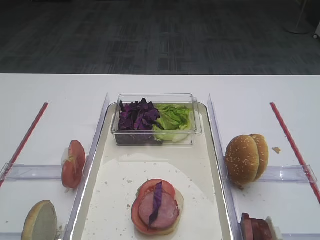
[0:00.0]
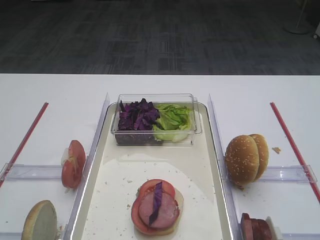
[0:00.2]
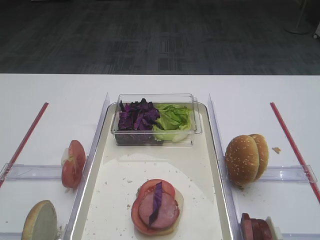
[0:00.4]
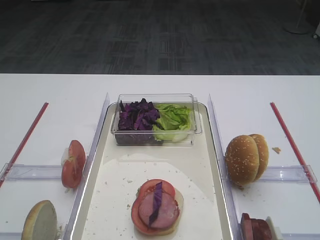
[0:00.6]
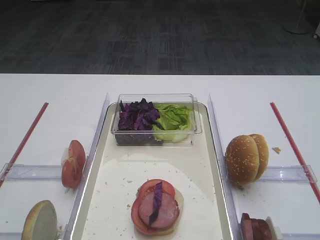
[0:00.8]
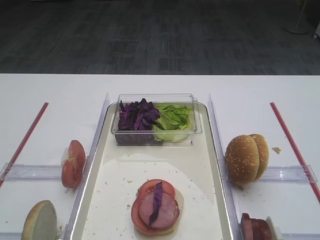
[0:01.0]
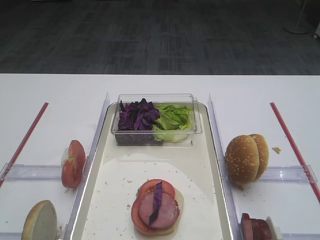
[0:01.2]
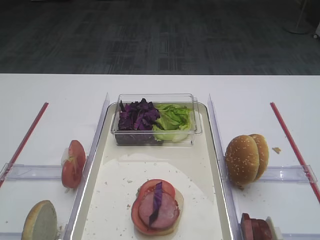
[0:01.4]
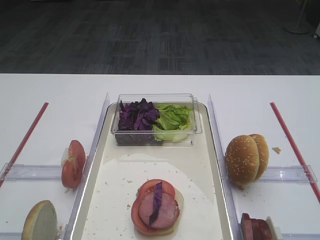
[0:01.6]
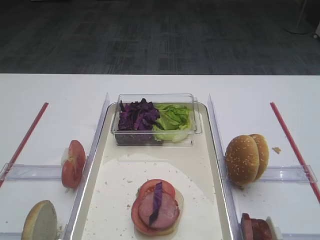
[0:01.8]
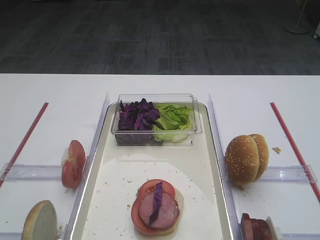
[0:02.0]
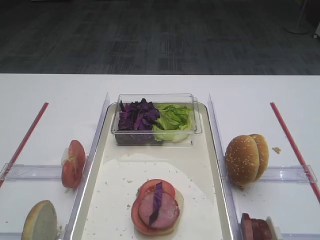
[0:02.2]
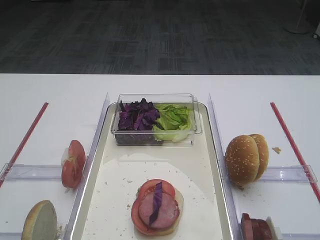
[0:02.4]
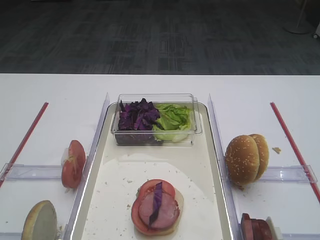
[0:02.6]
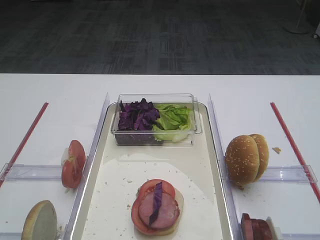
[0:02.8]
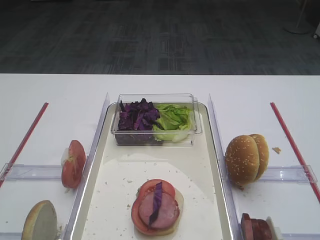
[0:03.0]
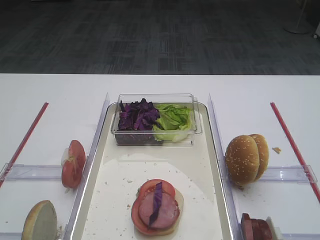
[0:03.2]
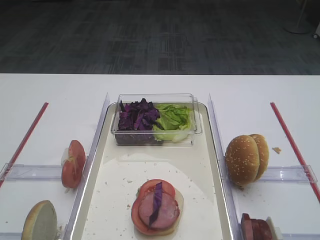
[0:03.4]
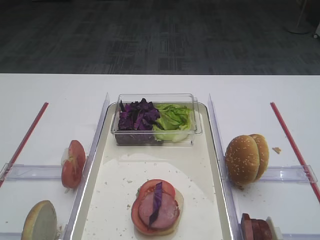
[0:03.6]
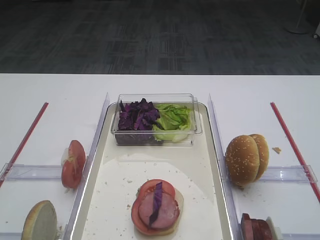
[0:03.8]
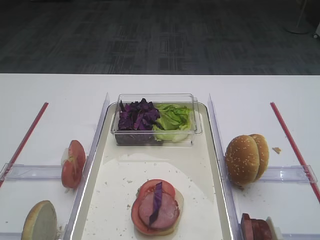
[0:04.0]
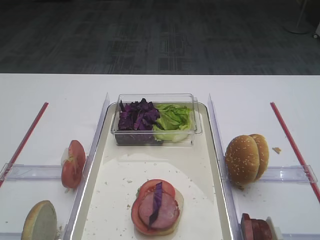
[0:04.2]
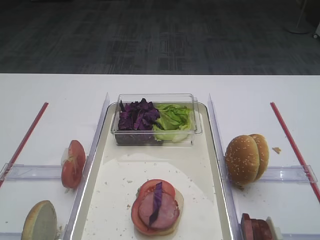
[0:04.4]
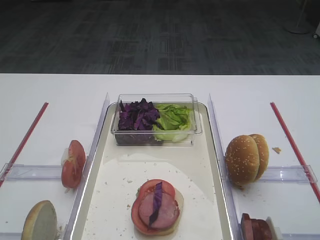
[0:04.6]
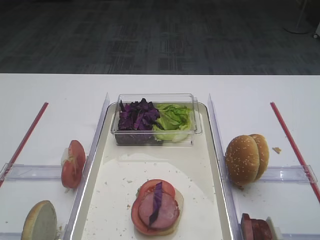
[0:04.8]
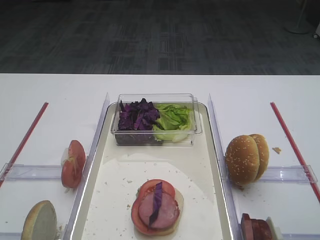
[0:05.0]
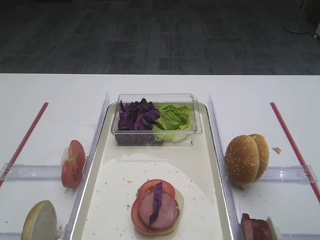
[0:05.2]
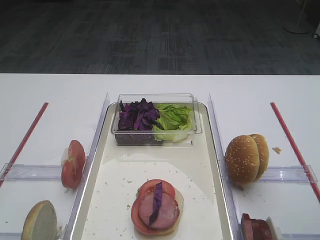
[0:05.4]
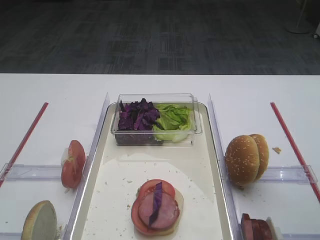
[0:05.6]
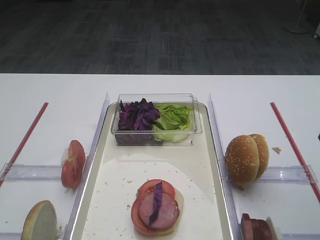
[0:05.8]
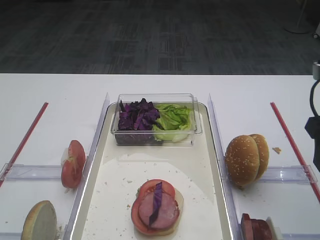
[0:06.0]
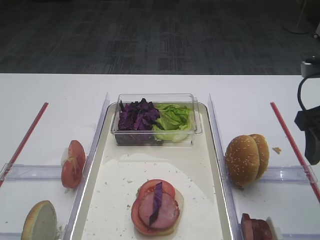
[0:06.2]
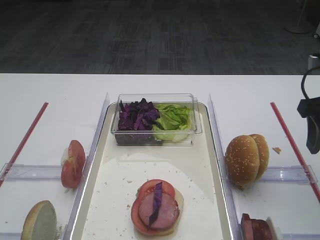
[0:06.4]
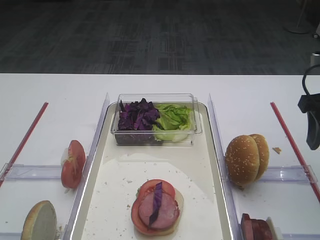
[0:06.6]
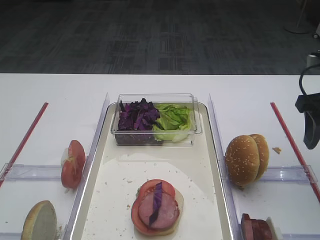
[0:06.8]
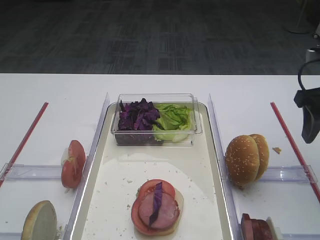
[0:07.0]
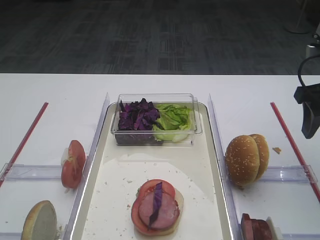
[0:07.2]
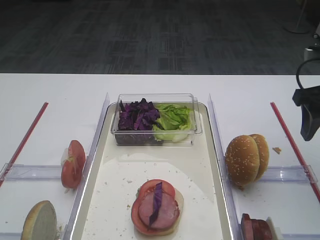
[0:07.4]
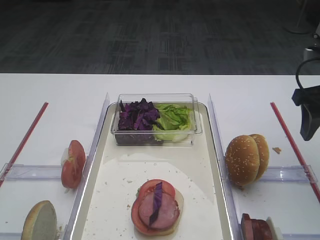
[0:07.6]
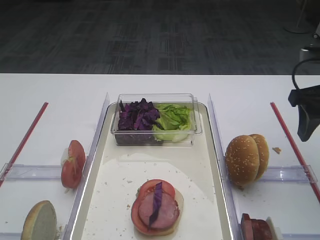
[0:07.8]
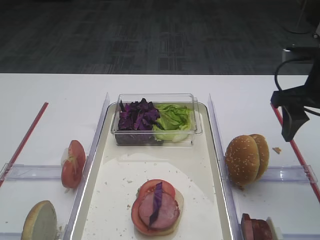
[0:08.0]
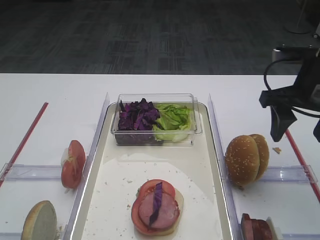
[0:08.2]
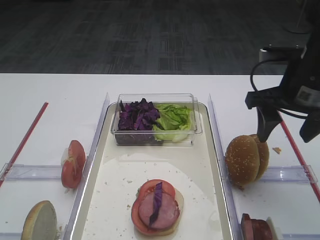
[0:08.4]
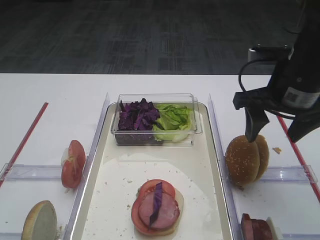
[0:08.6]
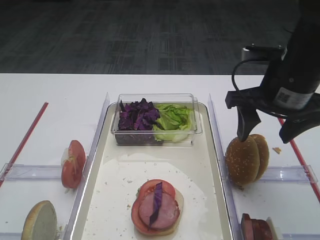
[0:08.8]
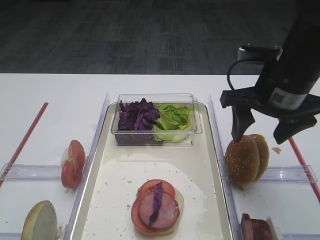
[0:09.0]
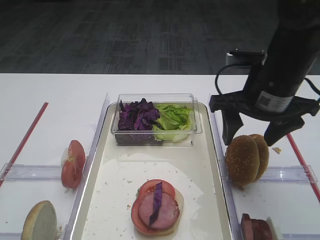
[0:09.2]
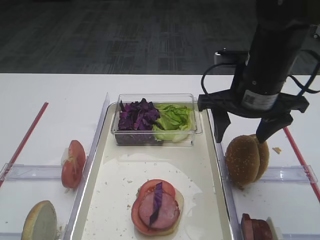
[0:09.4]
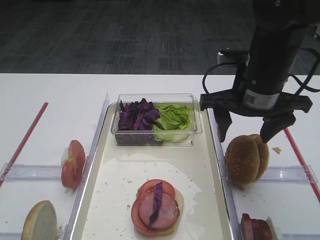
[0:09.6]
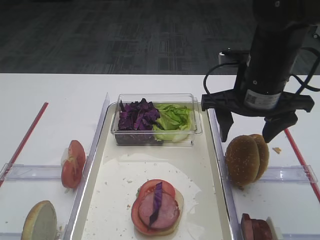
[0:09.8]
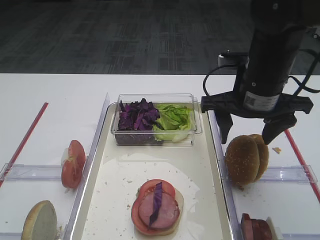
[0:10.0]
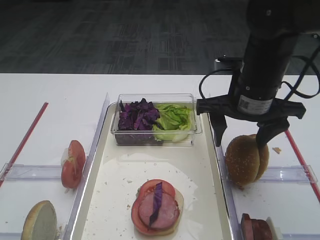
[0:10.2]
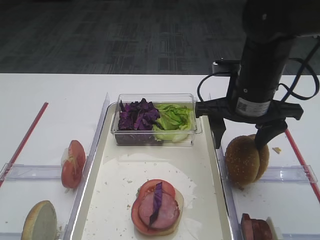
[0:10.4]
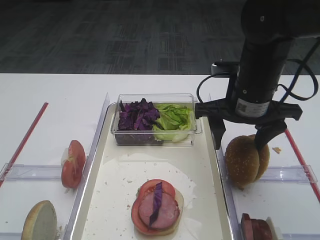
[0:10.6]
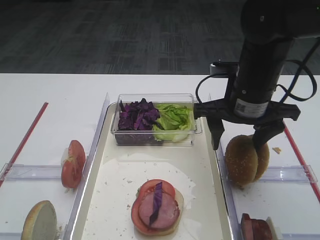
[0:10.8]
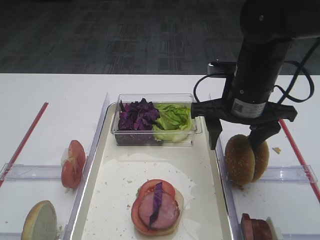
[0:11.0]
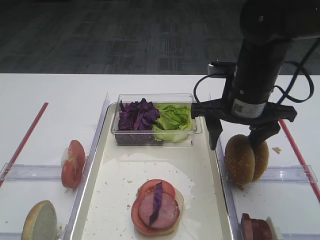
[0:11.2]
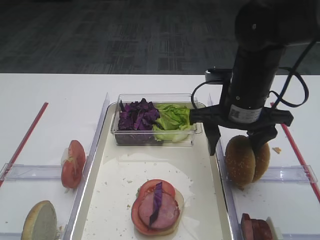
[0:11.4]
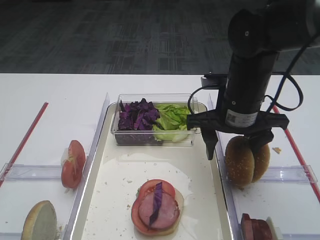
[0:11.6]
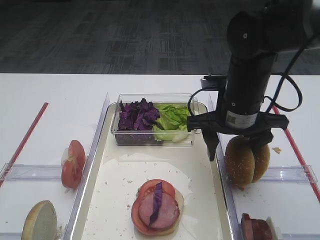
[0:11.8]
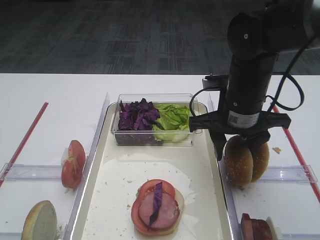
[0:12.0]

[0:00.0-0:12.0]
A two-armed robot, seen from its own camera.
0:04.4 to 0:06.0: The right gripper is displaced forward by about 10 cm.
0:06.0 to 0:07.6: The right gripper goes approximately 5 cm forward.
0:07.6 to 0:09.0: The right gripper moves to the left, about 10 cm.
0:09.0 to 0:10.4: There are only small adjustments of the grippers.
0:10.4 to 0:12.0: The grippers stay close to where they were, moving slightly.

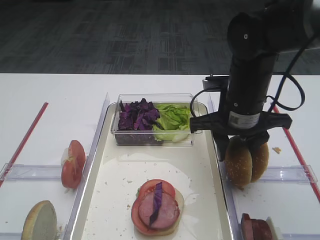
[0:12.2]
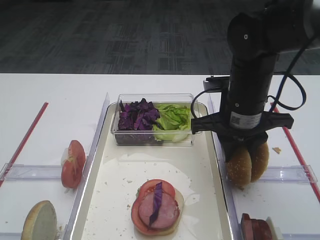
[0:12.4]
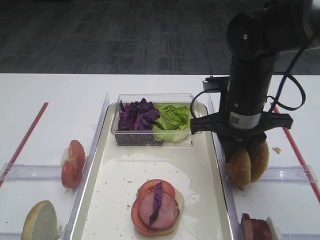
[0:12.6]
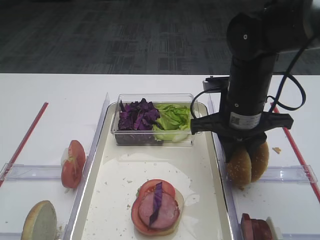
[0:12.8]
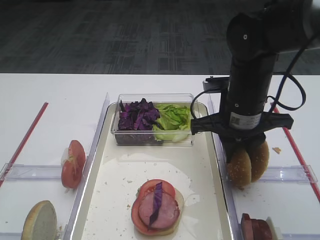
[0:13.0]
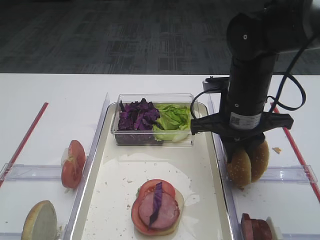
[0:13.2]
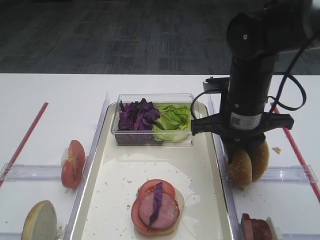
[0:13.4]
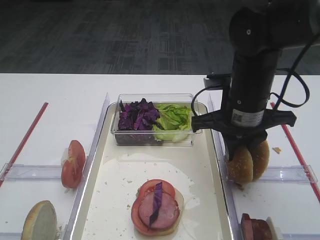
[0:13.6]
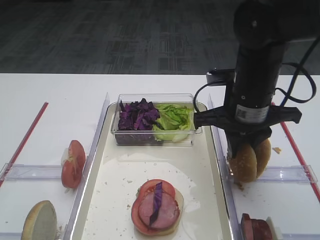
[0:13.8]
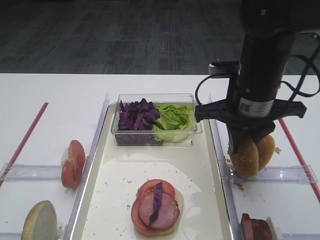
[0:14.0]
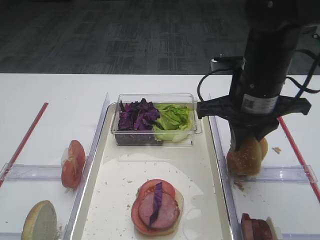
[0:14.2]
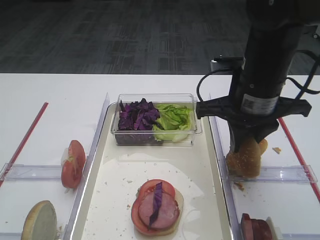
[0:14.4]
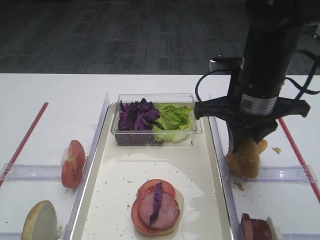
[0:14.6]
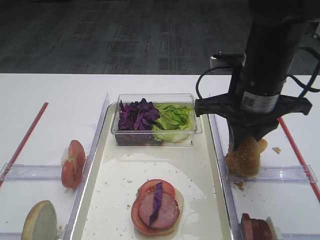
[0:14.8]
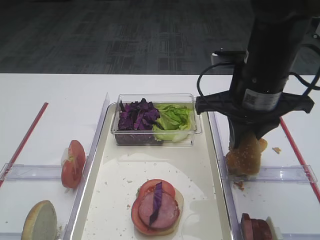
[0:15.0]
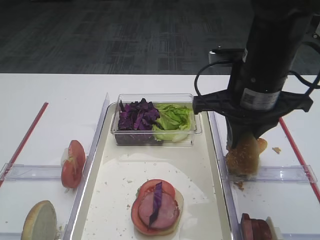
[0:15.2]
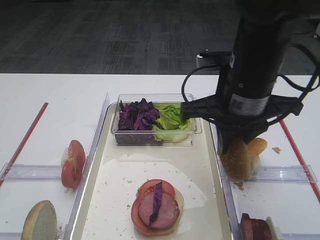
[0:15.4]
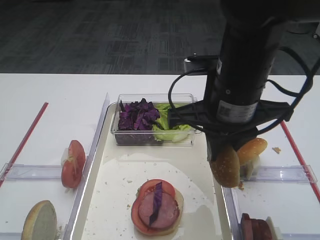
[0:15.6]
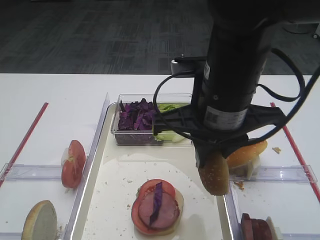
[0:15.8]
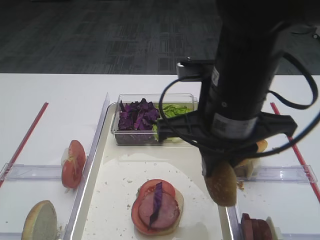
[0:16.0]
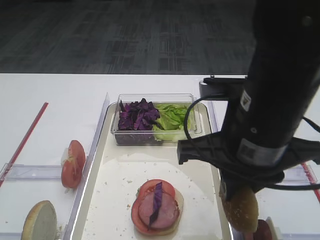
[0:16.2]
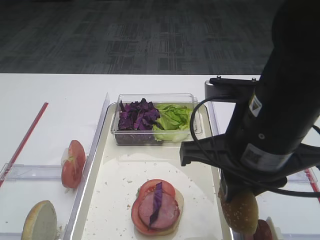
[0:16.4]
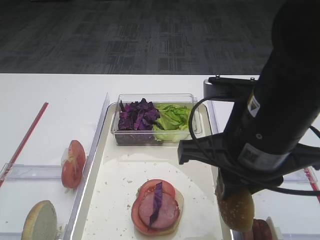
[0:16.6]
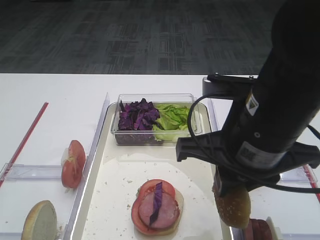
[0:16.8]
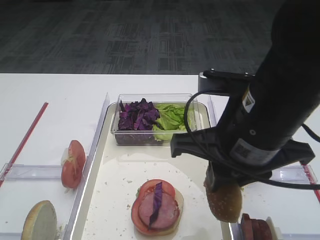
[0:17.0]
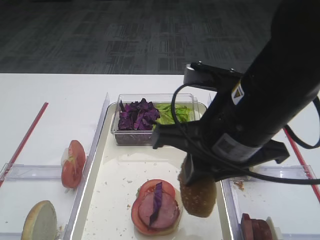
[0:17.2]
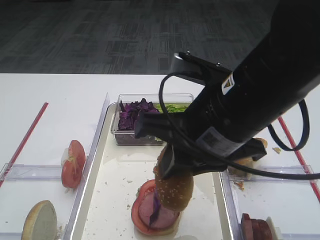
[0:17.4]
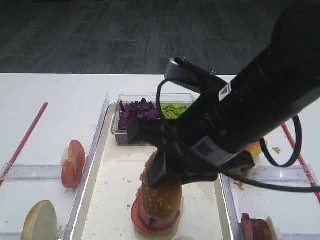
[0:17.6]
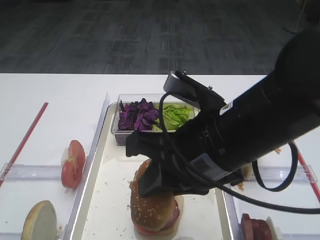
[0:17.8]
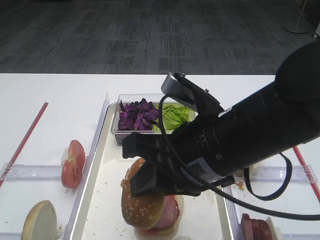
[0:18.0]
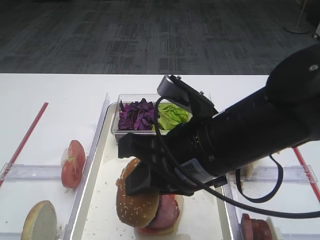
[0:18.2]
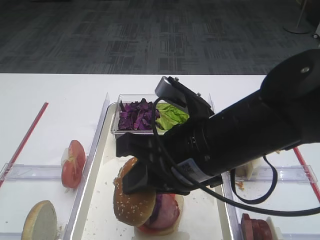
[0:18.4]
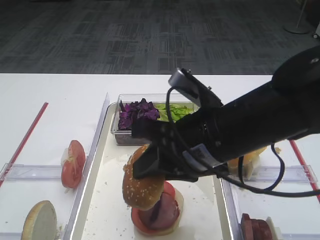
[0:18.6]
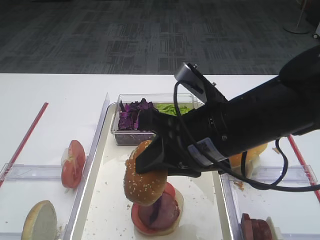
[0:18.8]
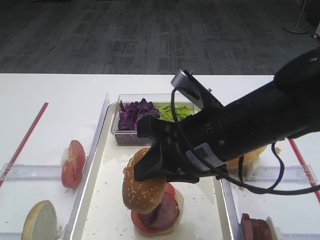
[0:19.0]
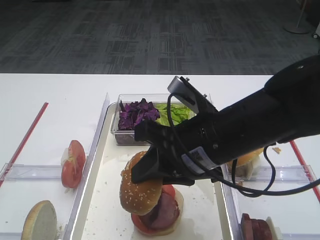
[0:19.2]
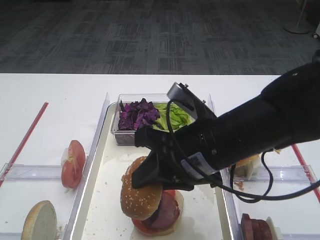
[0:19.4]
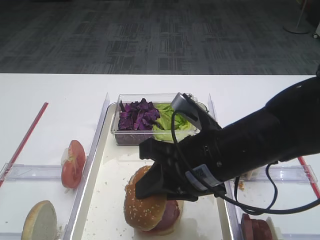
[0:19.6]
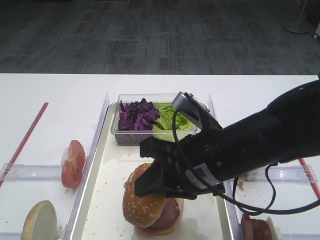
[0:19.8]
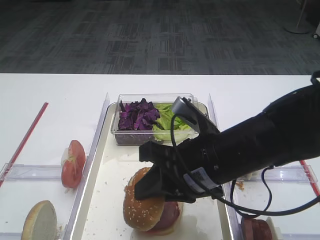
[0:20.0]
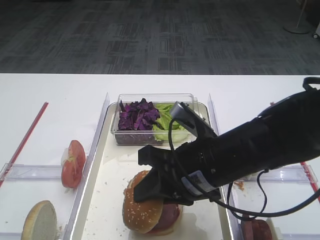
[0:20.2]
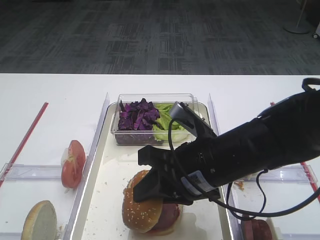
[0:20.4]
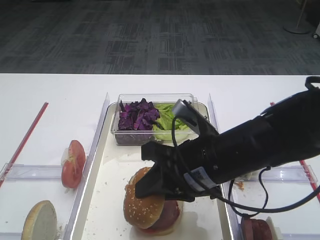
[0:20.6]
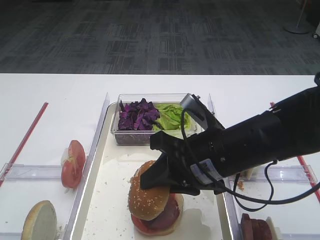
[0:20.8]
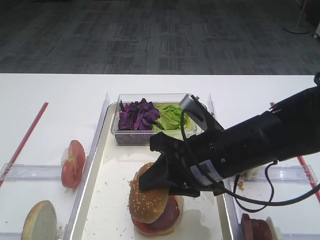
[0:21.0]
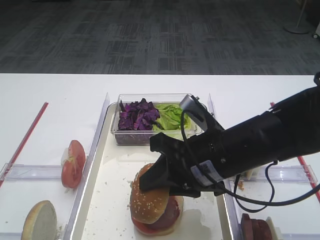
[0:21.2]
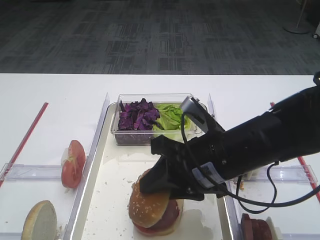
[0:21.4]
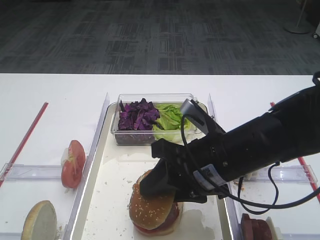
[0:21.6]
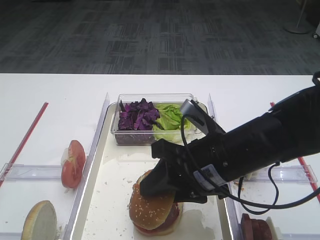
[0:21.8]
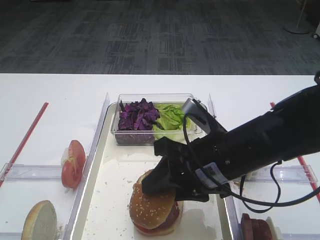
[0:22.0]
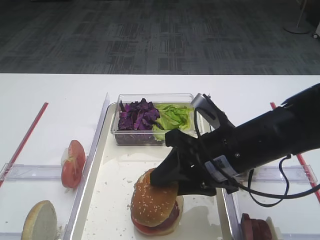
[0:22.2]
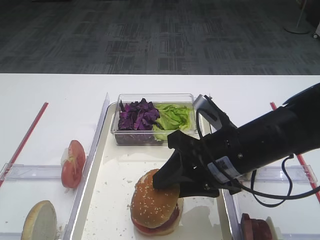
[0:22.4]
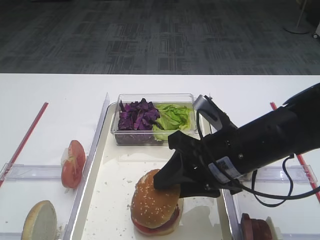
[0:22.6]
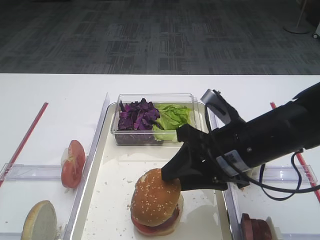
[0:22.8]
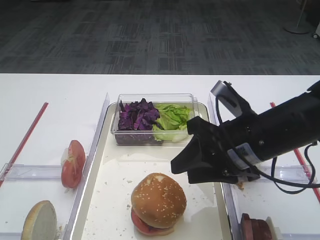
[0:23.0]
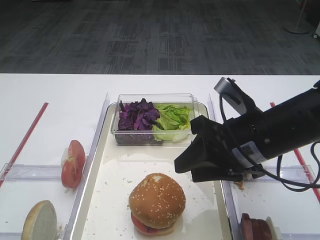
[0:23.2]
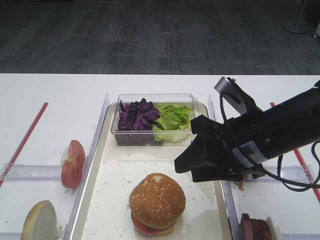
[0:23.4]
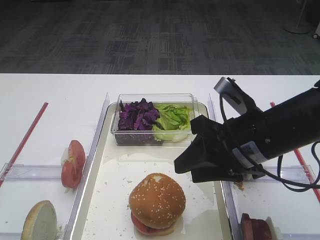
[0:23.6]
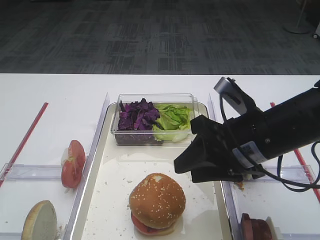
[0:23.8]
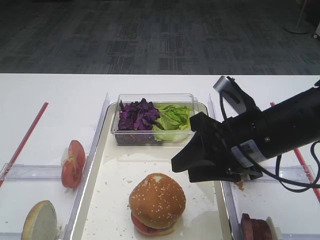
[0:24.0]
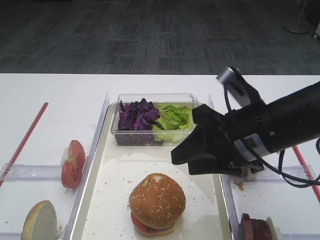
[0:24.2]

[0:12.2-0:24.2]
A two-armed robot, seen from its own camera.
Step, 0:12.2 to 0:15.6: Pick up the hamburger lid with the right gripper.
0:12.2 to 0:13.8: There are only small adjustments of the grippers.
0:13.8 to 0:15.2: The right gripper shifts by about 5 cm.
0:15.2 to 0:16.6: The right gripper moves backward, about 10 cm.
0:16.6 to 0:18.2: The right gripper shifts by roughly 5 cm.
0:18.2 to 0:19.8: The right gripper changes place by roughly 5 cm.
0:19.8 to 0:22.6: The grippers move only a little.
0:22.6 to 0:24.2: The grippers make only small movements.
